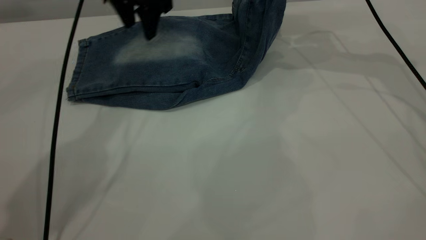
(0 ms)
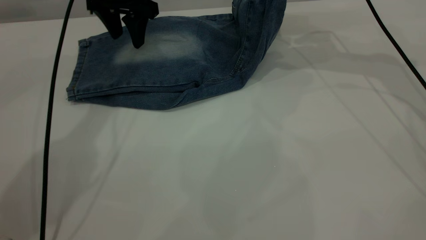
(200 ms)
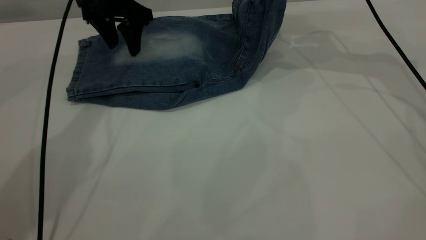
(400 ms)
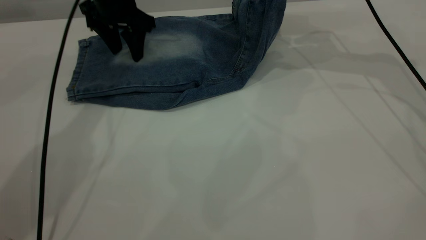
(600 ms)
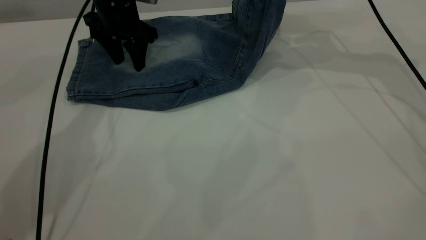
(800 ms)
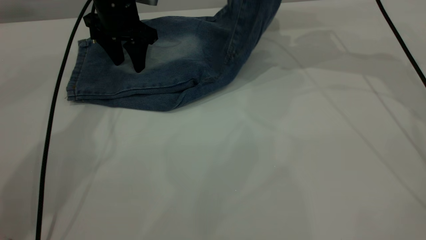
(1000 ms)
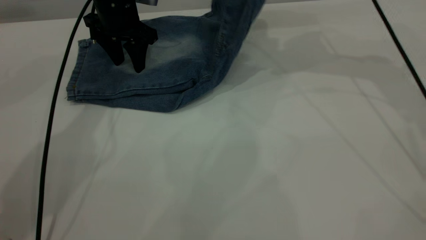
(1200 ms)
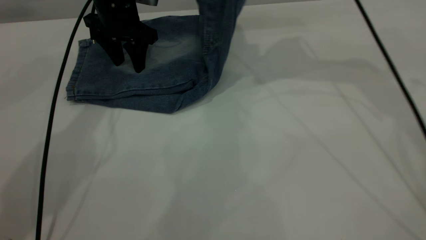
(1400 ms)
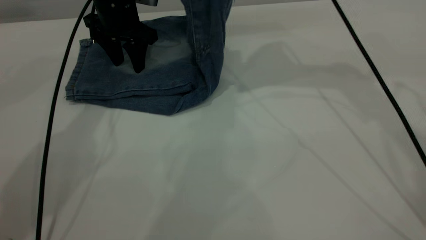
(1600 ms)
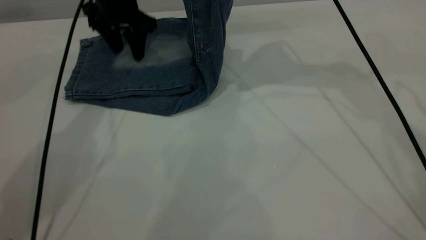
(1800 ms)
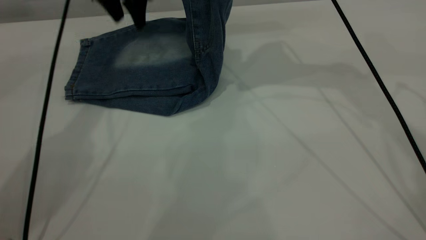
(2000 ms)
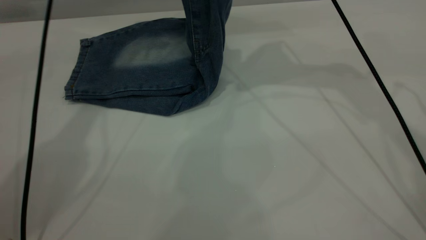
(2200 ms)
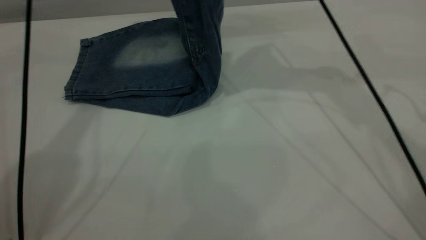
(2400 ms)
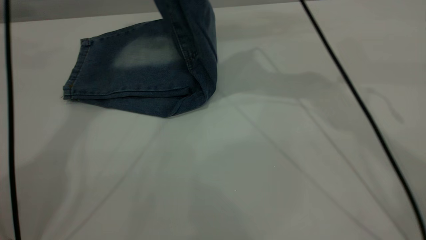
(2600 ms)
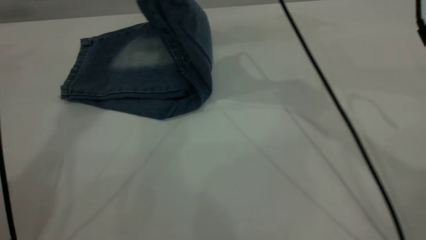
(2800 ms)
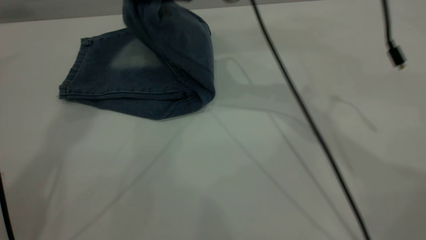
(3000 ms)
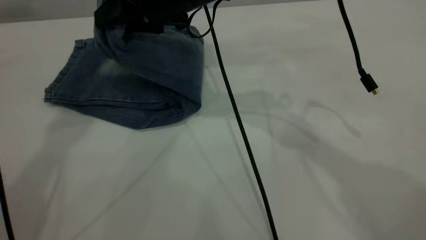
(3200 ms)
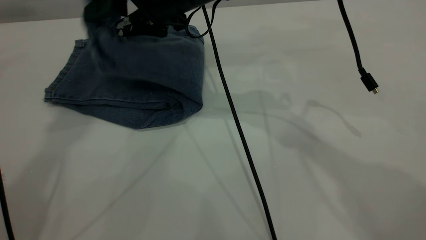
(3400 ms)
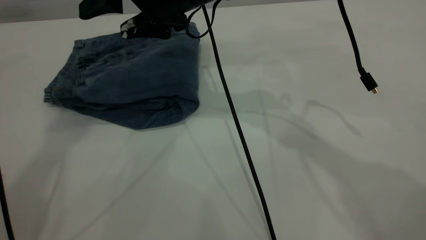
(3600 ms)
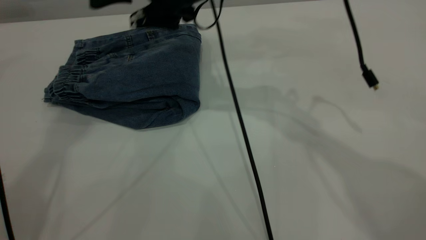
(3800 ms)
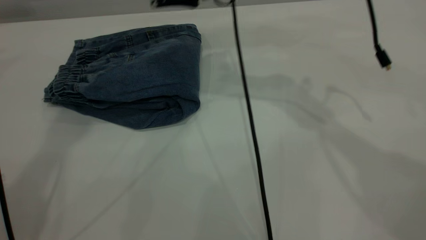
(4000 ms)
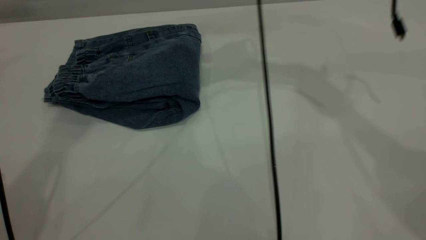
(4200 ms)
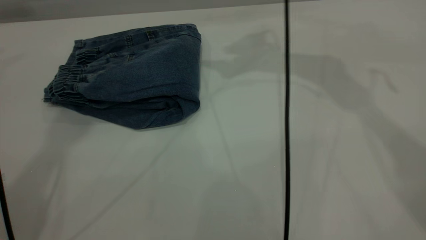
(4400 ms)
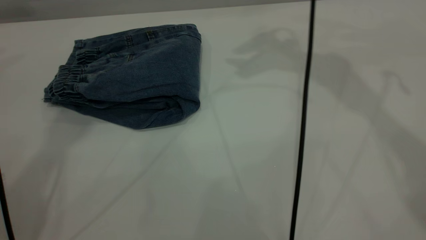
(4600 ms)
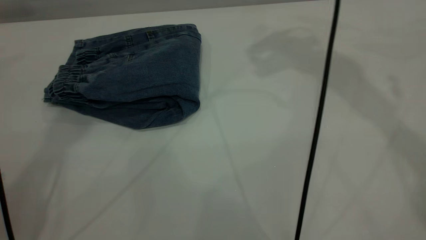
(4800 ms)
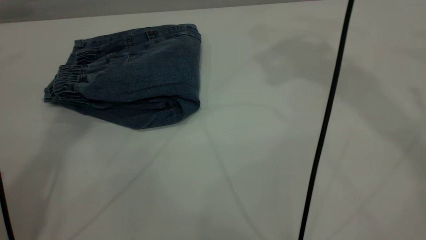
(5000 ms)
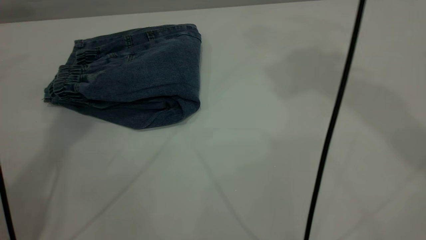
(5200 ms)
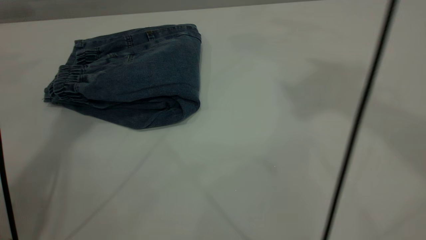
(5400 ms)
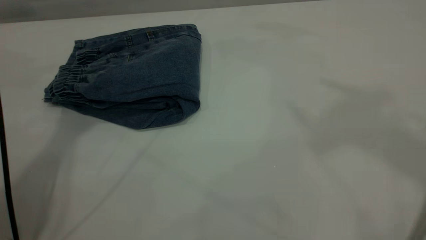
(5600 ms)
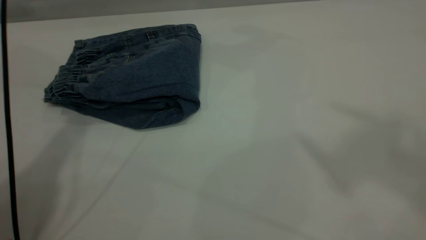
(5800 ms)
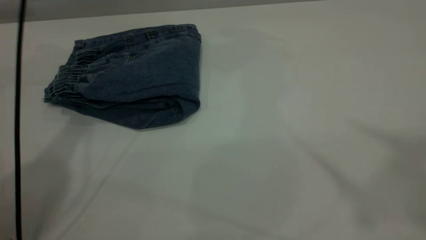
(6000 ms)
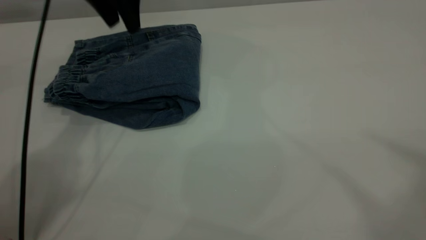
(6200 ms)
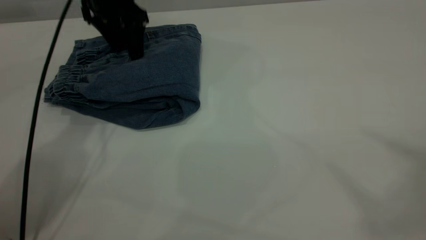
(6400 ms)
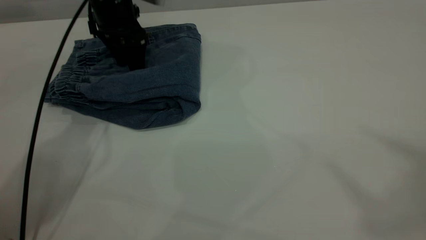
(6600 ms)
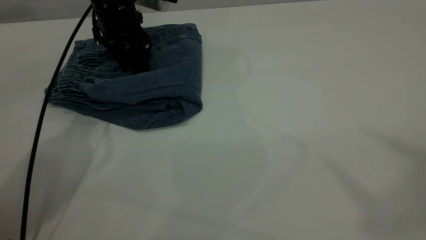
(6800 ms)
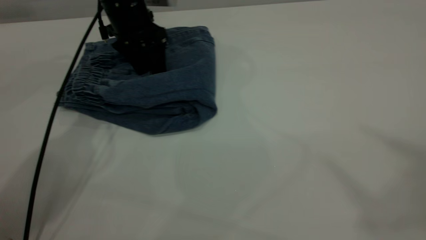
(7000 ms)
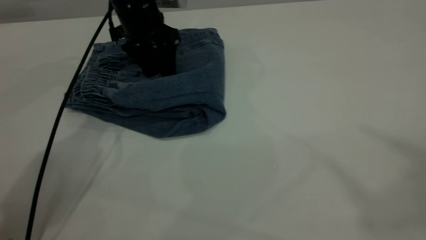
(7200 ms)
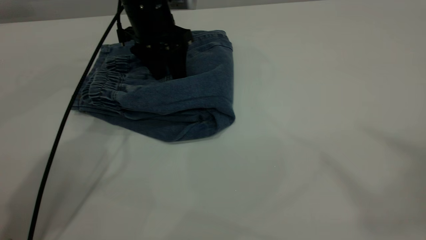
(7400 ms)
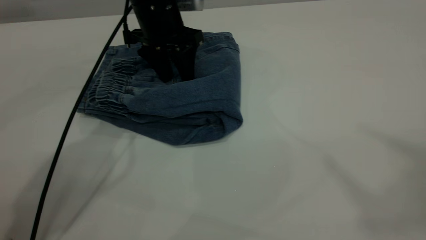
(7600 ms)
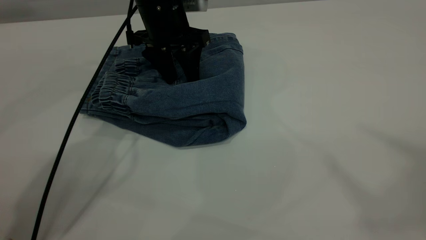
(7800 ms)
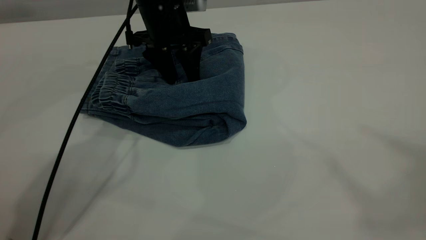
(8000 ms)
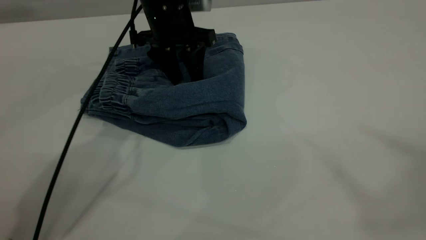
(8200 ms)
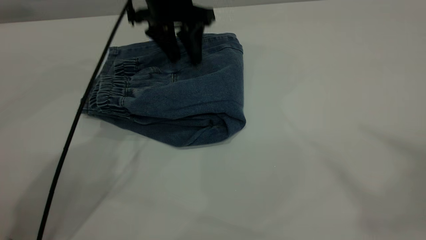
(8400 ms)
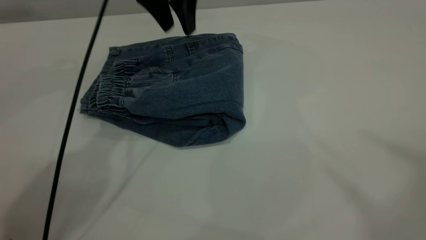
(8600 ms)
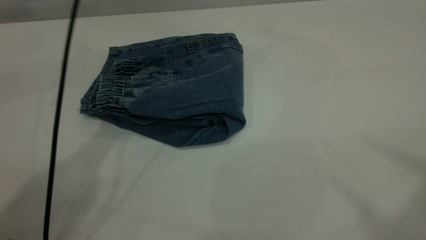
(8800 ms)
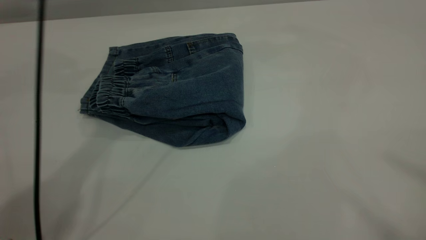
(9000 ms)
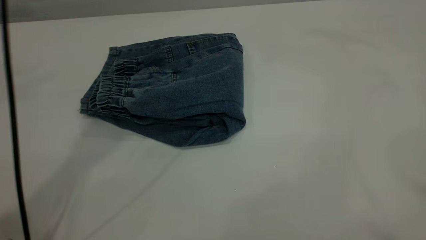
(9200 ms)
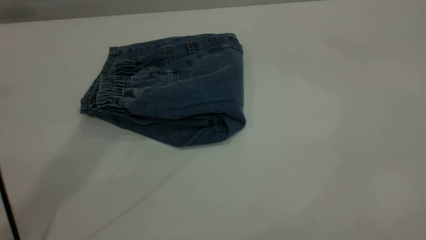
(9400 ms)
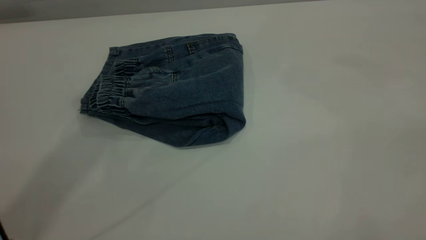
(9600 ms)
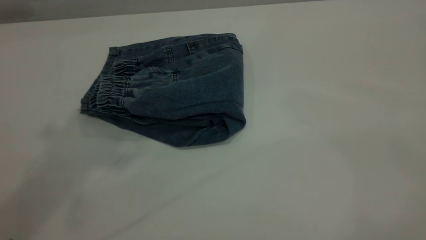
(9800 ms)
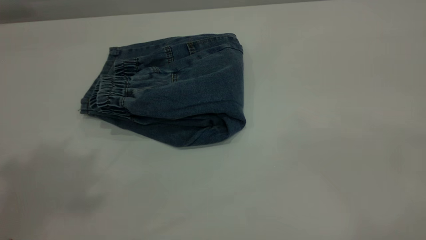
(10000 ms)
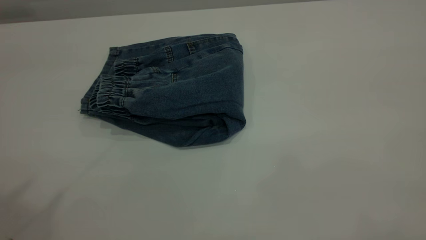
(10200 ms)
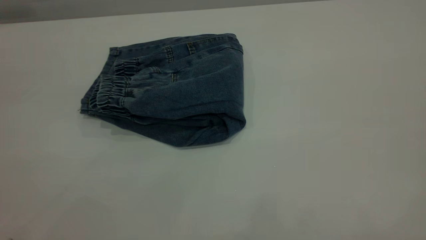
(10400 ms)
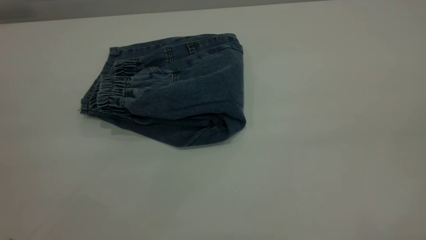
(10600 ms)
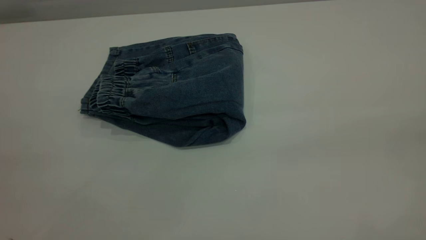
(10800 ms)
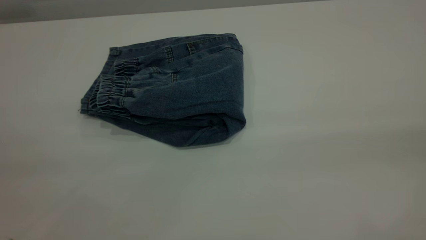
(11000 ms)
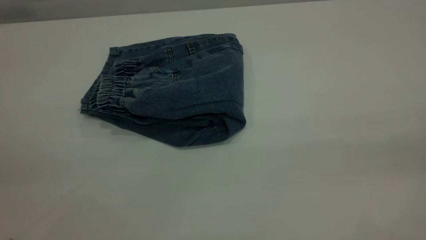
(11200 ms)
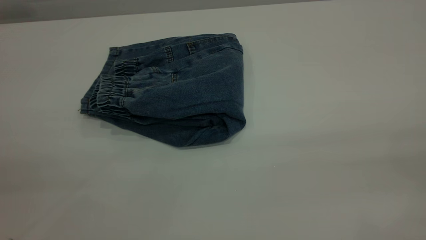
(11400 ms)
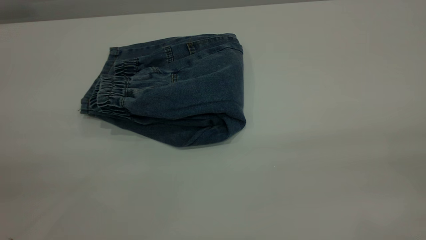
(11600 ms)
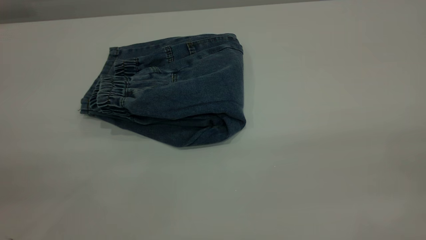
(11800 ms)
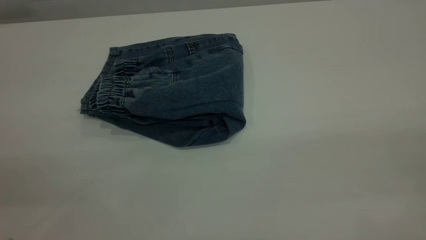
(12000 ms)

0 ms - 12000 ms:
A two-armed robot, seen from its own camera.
Step, 0 ms - 3800 ms: Fold your pants from right to left.
0 ms - 1600 ms: The left gripper is displaced downward by roughly 5 cm; the right gripper is displaced to the left and upward by roughly 10 cm.
1600 ms - 3000 ms: The left gripper shifts approximately 35 cm upward, while the right gripper travels to the left by roughly 10 cm.
3000 ms - 4400 ms: The right gripper moves to the right, upward and forward, approximately 15 cm, and opens its fingers.
4400 ms - 6000 ms: The right gripper heads upward and backward, covering roughly 40 cm, while the left gripper shifts approximately 20 cm downward.
6000 ms - 7600 ms: The left gripper moves downward and to the right, roughly 15 cm.
7600 ms - 9000 ms: The right gripper ends up some 5 cm from where it was; the left gripper goes about 25 cm upward.
9000 ms - 10400 ms: The left gripper shifts about 40 cm backward and to the left.

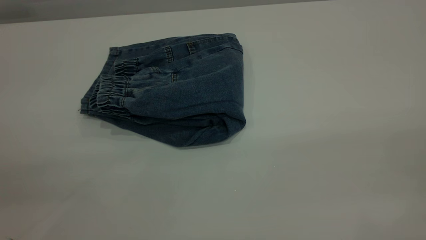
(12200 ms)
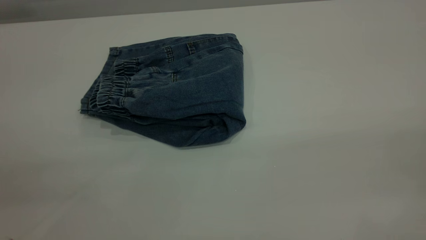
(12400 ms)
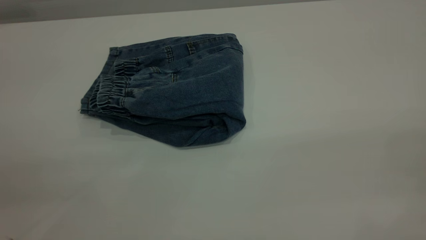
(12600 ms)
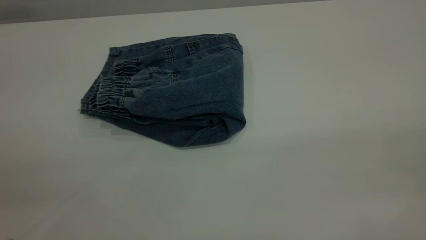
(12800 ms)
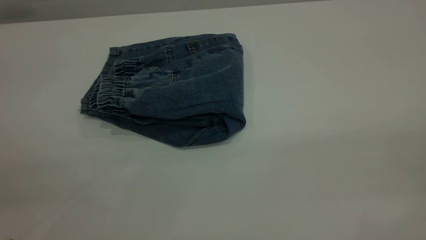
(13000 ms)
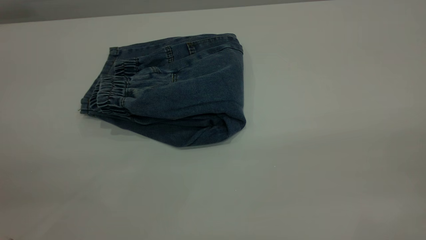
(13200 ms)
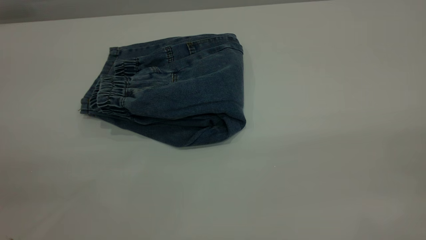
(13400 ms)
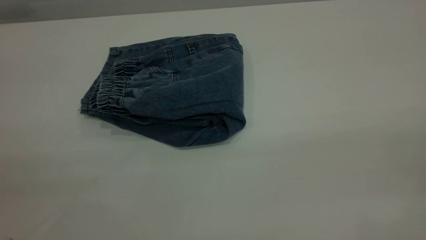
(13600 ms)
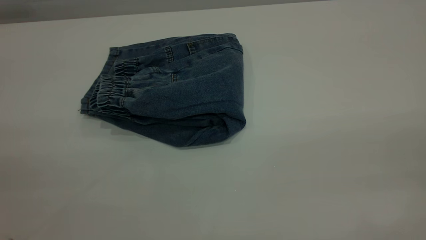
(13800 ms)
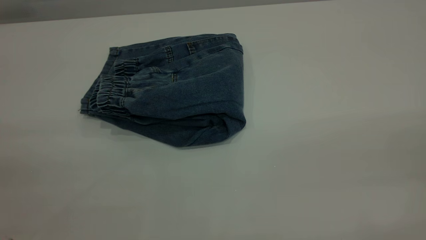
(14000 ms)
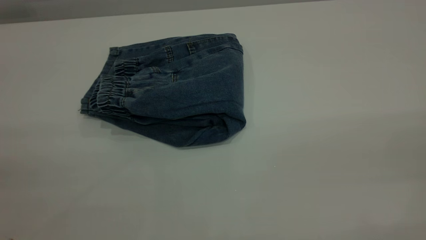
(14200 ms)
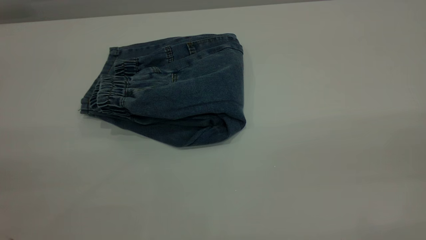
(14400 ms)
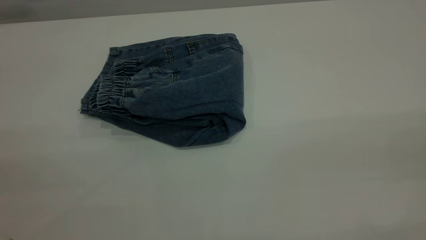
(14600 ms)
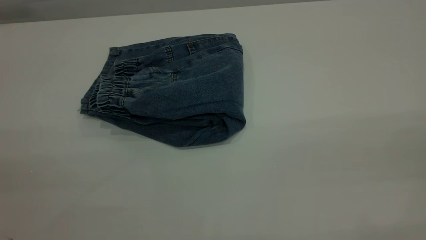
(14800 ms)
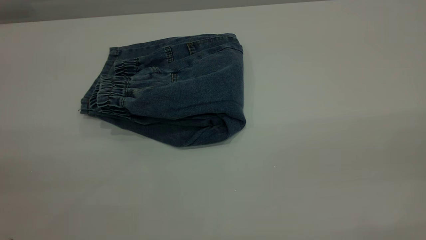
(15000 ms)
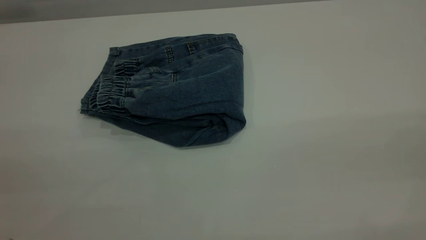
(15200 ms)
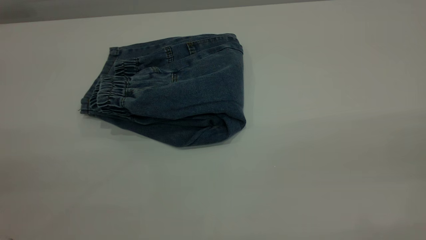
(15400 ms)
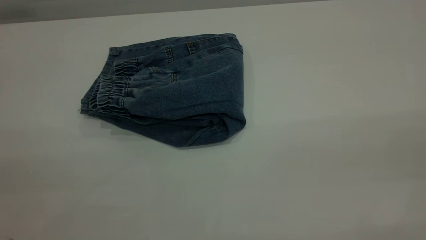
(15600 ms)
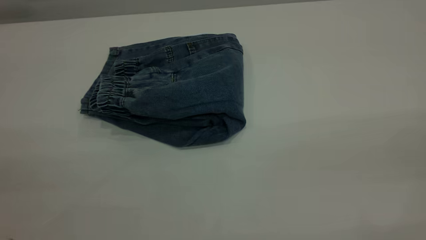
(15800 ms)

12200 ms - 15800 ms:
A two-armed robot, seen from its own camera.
14000 ms - 15800 ms: Both grippers stay put.

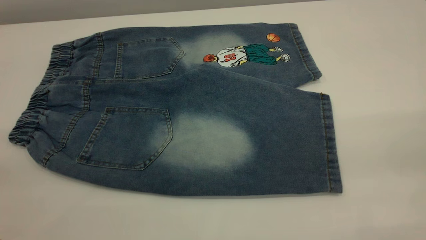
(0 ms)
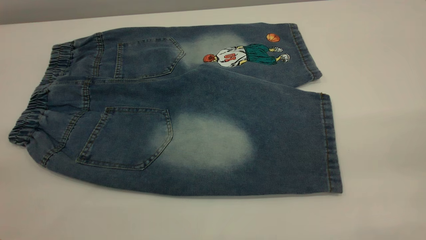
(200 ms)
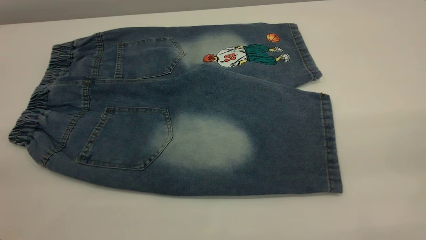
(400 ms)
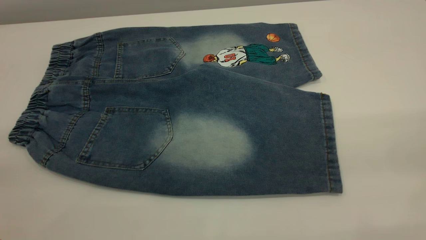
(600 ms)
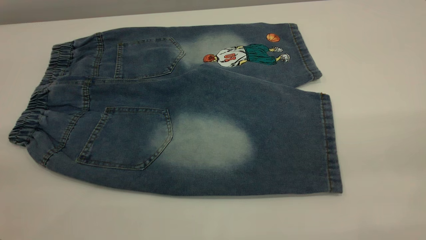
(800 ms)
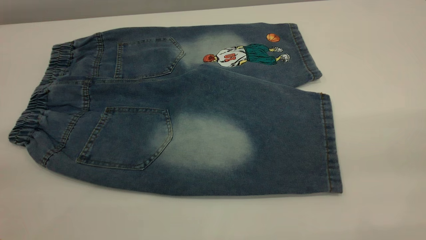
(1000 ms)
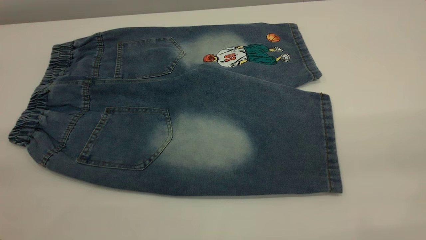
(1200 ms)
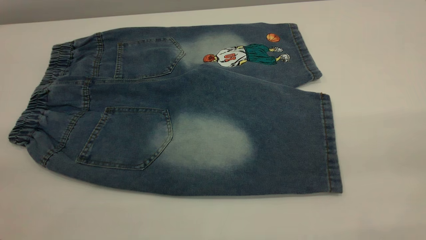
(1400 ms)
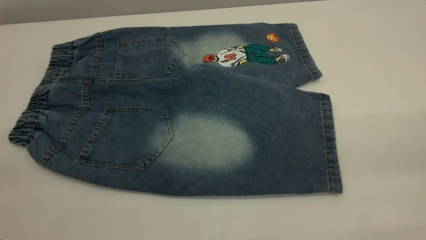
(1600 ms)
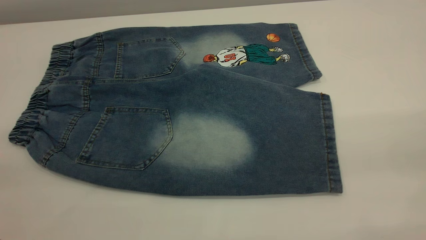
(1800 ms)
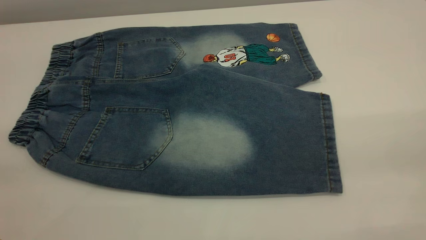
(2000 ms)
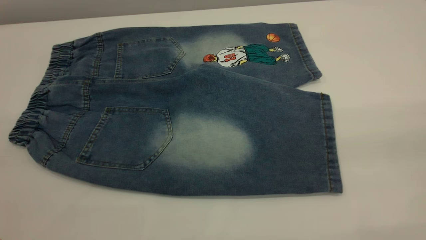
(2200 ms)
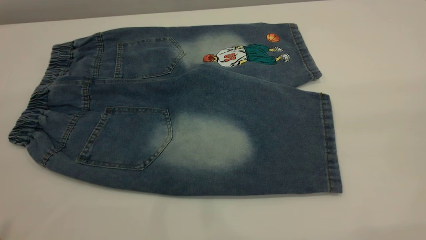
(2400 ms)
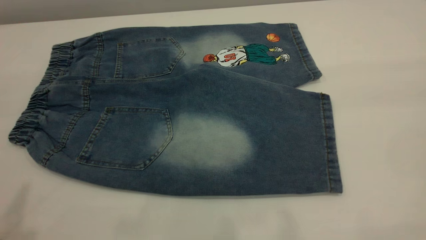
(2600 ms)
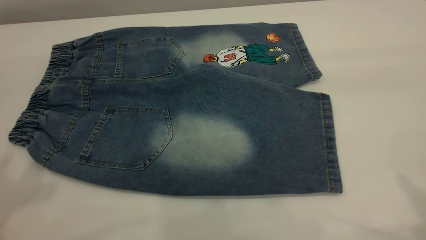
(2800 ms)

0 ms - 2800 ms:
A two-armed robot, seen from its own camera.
0 ms - 1400 ms: Neither gripper changes place.
